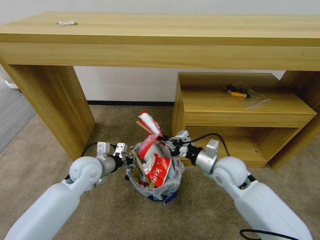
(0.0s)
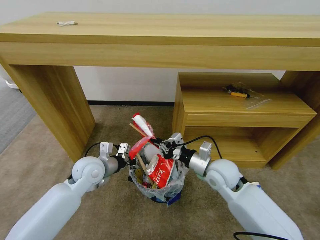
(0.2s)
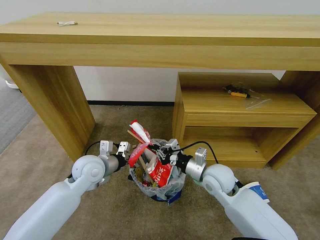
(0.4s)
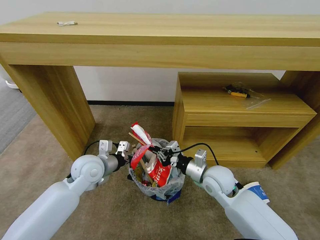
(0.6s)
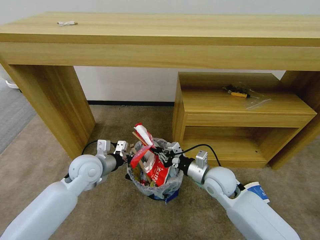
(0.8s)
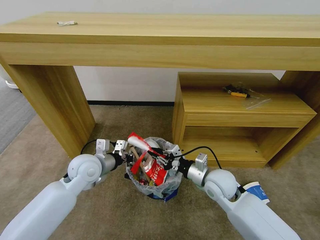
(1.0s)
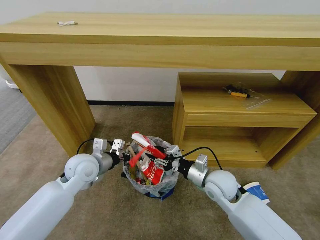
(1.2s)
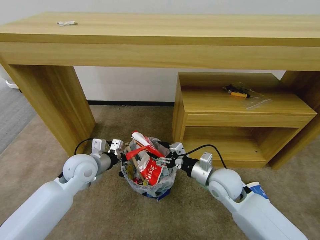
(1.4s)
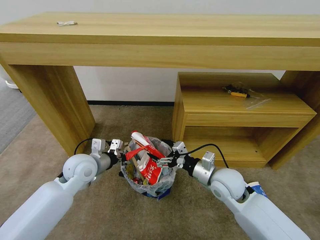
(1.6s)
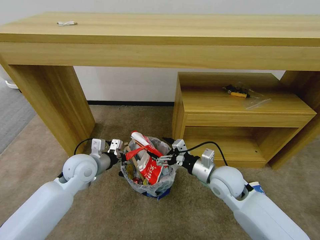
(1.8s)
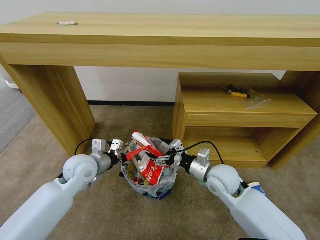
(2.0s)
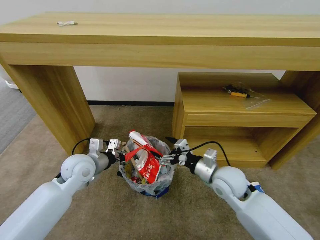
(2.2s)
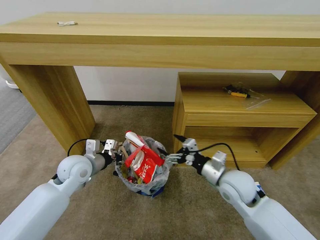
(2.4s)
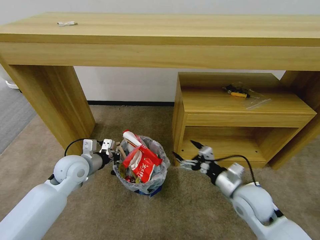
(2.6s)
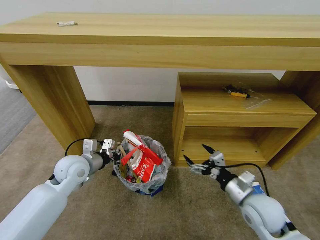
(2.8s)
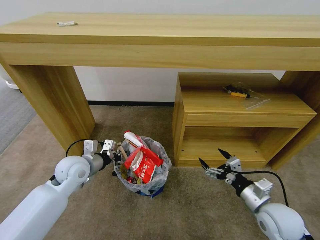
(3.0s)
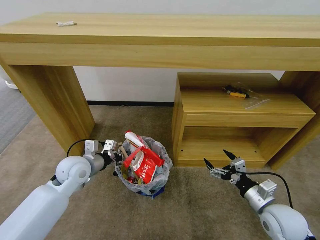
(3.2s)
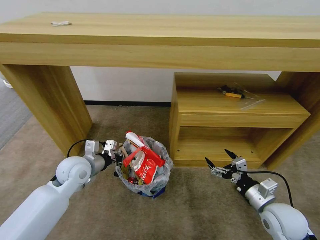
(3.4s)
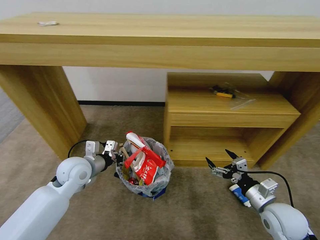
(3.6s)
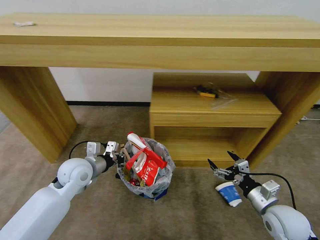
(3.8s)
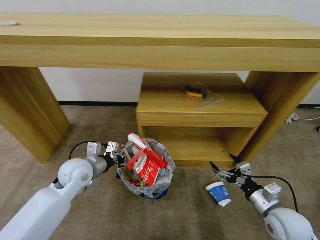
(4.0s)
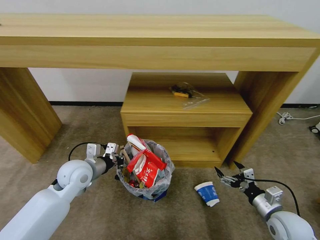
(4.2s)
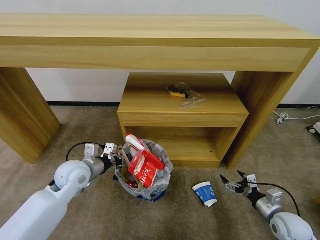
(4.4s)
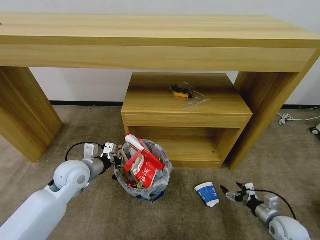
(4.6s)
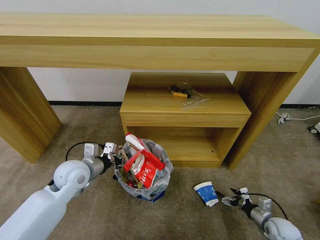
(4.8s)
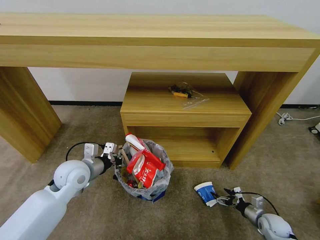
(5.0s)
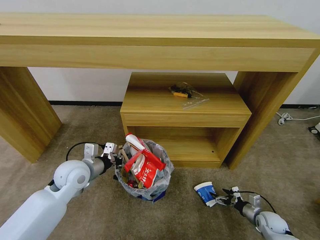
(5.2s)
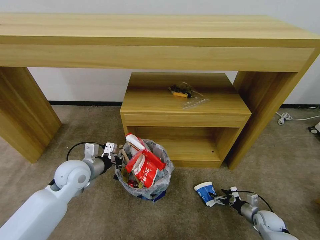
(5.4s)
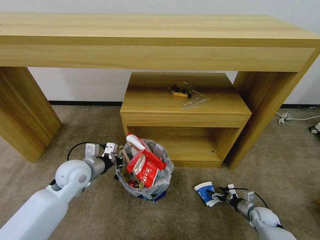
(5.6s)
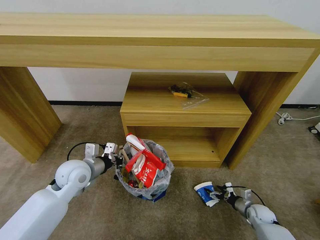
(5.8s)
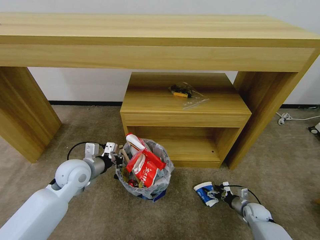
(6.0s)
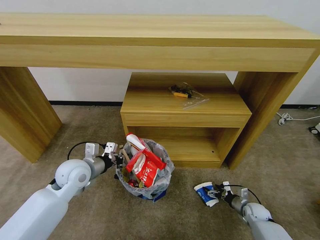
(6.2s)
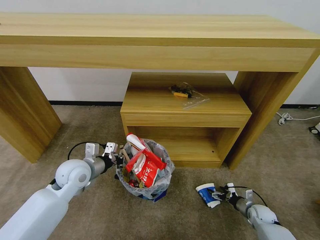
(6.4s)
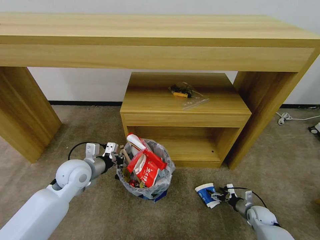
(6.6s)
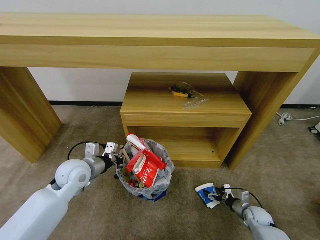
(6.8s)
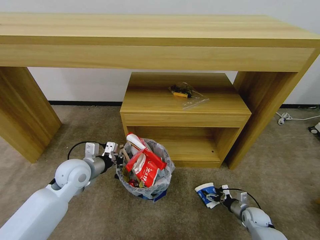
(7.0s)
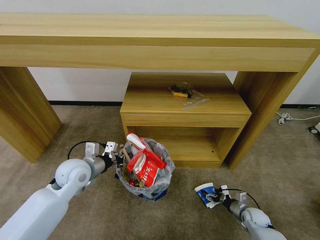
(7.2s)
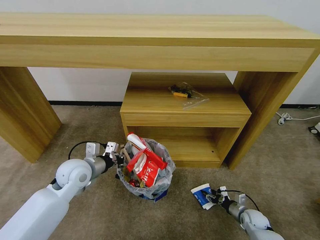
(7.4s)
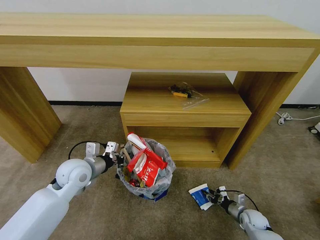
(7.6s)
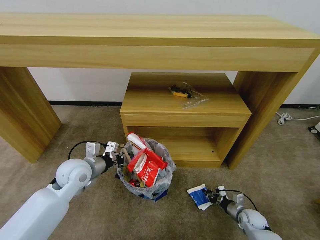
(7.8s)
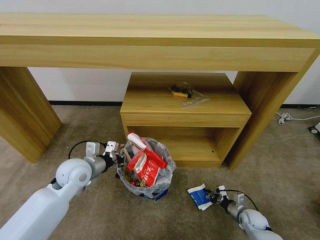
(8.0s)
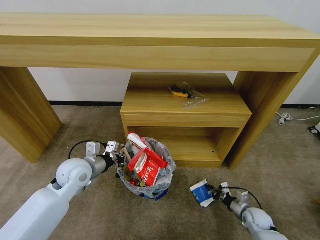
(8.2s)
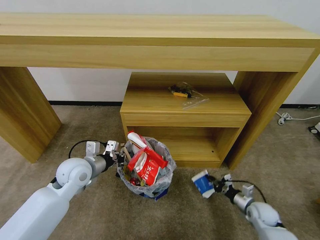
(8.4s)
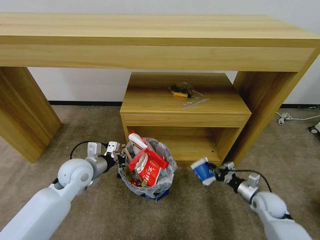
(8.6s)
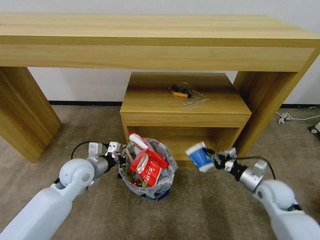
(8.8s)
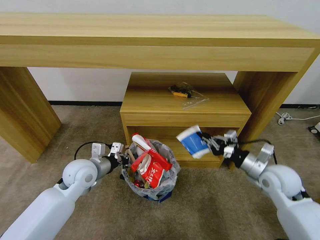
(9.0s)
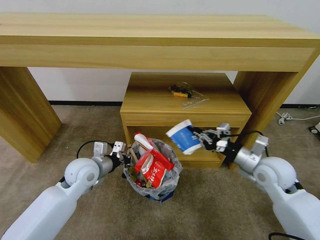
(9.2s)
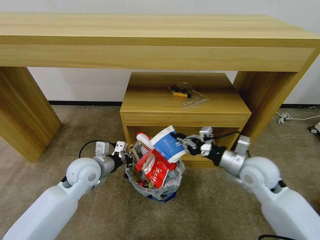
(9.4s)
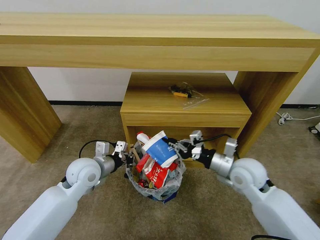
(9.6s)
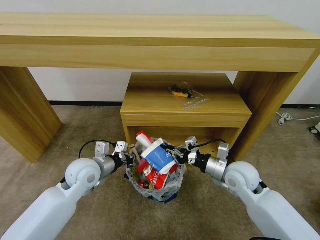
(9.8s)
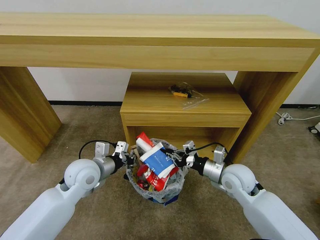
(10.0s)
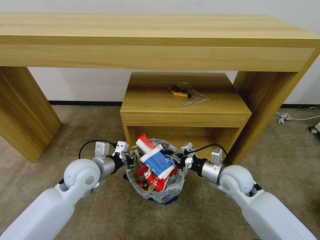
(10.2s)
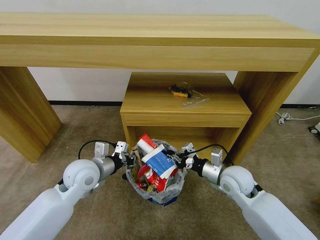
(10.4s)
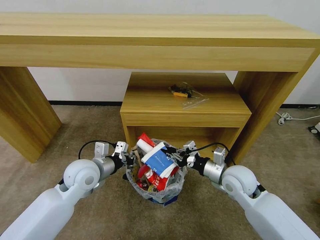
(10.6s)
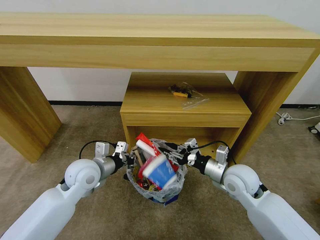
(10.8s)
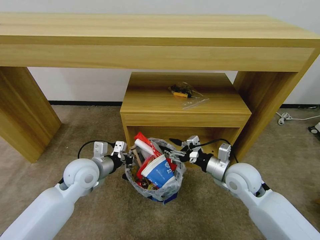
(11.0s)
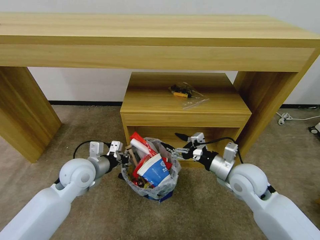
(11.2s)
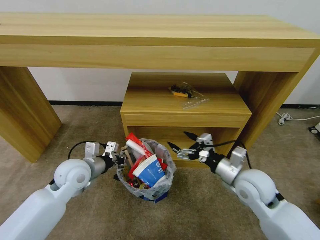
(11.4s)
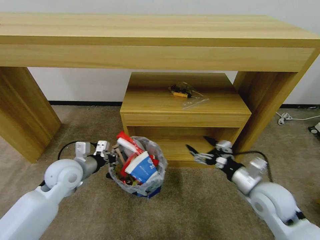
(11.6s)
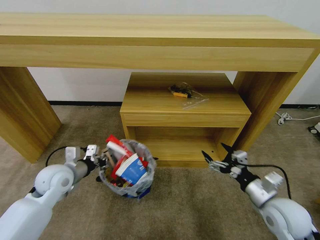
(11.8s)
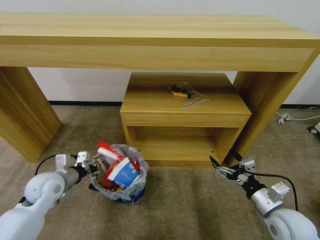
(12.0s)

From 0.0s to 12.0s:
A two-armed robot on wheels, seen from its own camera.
Task of the whole recording: Pick up the trash bin and place the garbage on the floor into it.
From 0.0s to 1.6s: The right gripper opens.
From 1.6s to 3.0s: The right gripper shifts roughly 15 cm to the right and backward.
From 3.0s to 4.4s: The right gripper goes about 15 cm to the right and downward.
From 4.4s to 6.0s: The right gripper heads downward and forward, covering some 20 cm.
From 6.0s to 7.6s: The right gripper closes up.
From 7.6s to 9.0s: The right gripper shifts roughly 30 cm upward, and closes its fingers.
From 9.0s to 10.4s: The right gripper is displaced to the left by some 10 cm.
From 10.4s to 12.0s: The left gripper heads to the left, covering roughly 10 cm. The right gripper heads backward and to the right, covering about 15 cm, and opens its fingers.

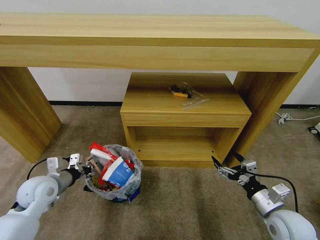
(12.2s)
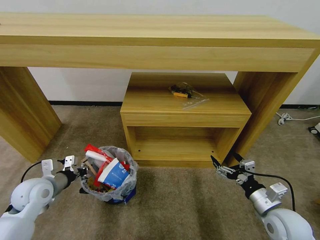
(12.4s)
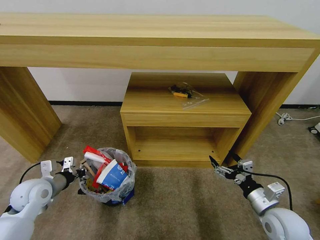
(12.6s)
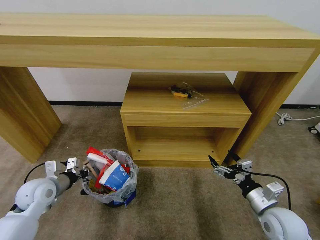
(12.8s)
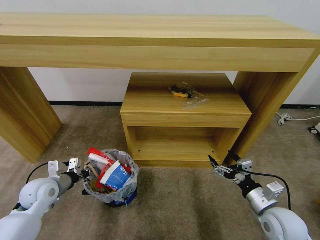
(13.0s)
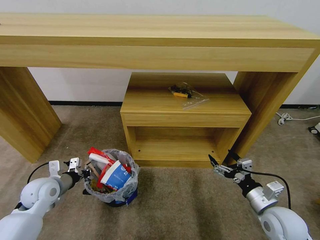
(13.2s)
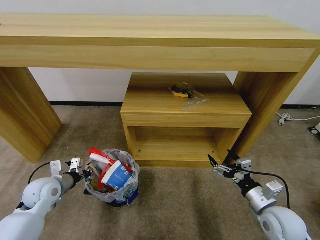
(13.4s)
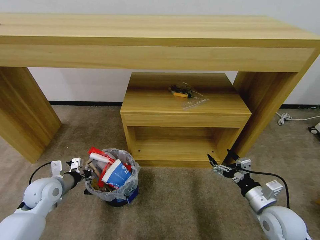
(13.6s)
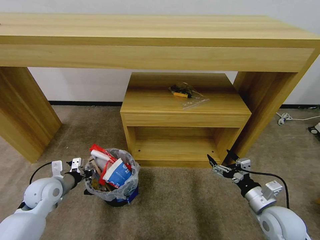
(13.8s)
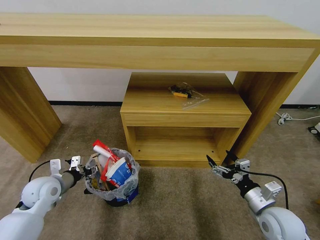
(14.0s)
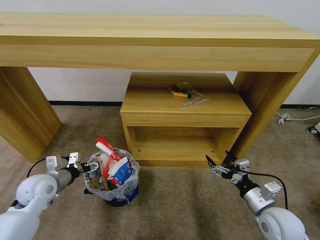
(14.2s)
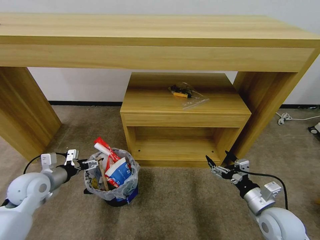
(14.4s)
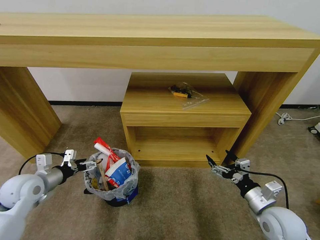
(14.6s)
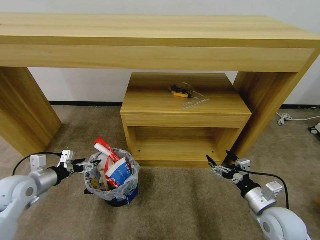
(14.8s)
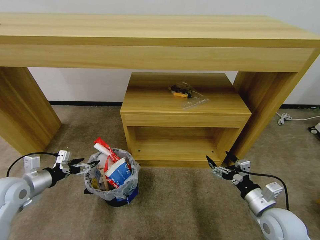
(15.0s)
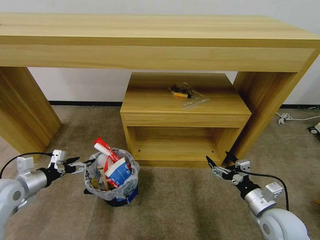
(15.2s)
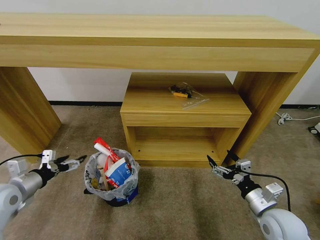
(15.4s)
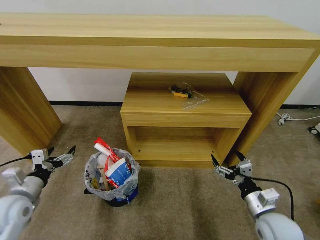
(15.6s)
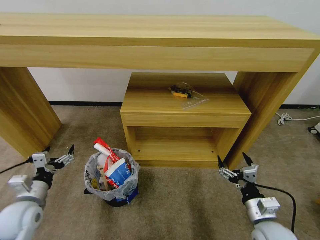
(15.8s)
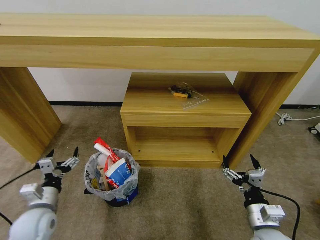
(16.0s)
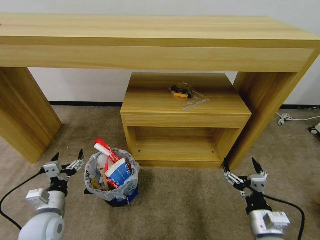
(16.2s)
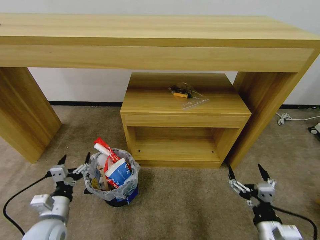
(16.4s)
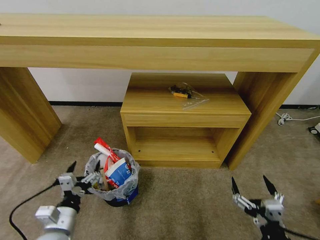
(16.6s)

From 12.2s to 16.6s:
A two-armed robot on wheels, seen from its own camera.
Task of the whole recording: Pick up the trash bin and place the garbage on the floor into it.
From 12.2s to 13.6s: The grippers make only small movements.
From 13.6s to 15.2s: The left gripper heads upward and to the left, covering some 10 cm, and opens its fingers.
From 15.2s to 16.6s: The left gripper shifts roughly 20 cm to the right, backward and downward. Meanwhile the right gripper travels backward by some 15 cm.

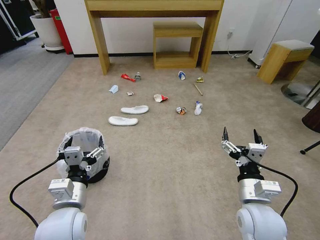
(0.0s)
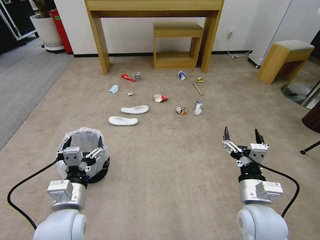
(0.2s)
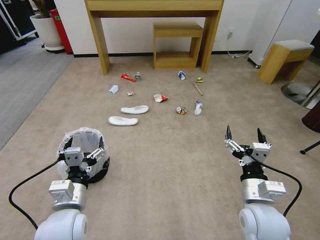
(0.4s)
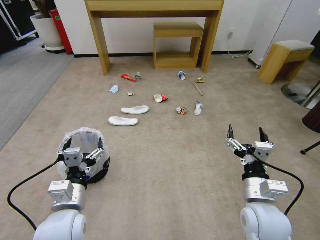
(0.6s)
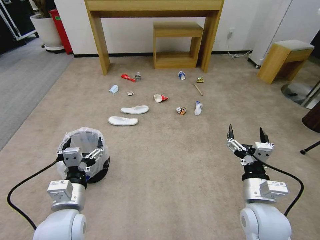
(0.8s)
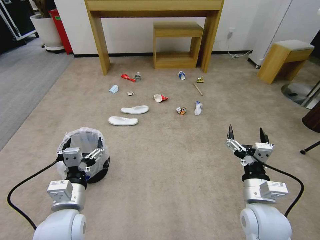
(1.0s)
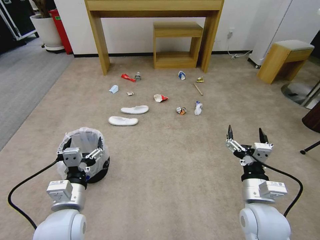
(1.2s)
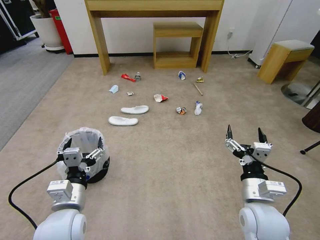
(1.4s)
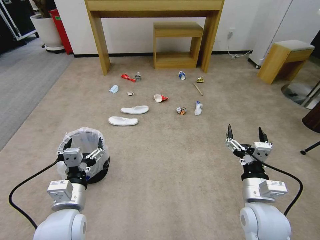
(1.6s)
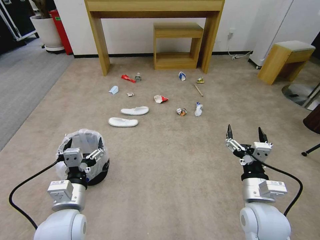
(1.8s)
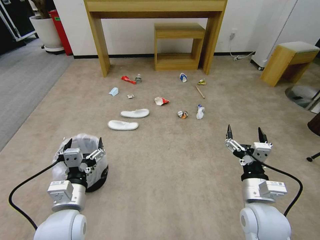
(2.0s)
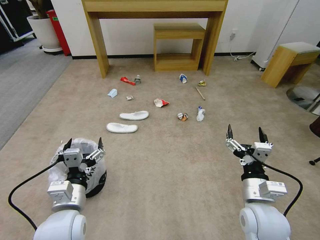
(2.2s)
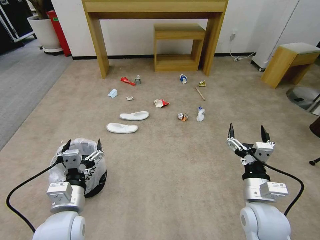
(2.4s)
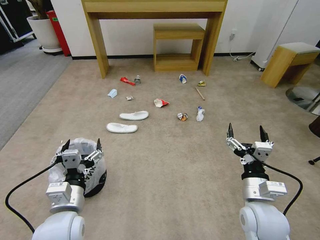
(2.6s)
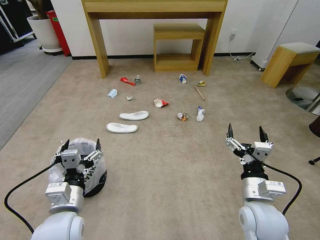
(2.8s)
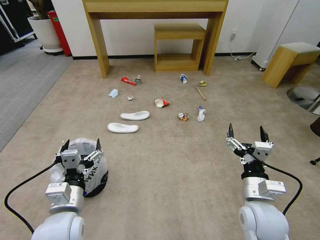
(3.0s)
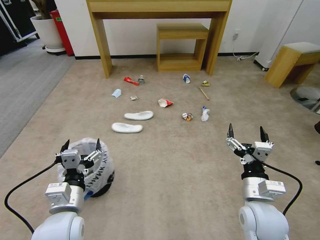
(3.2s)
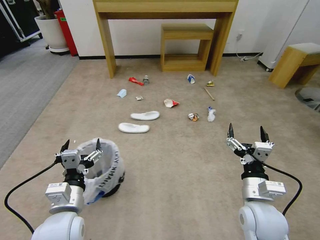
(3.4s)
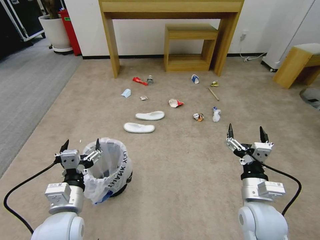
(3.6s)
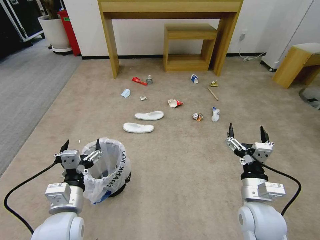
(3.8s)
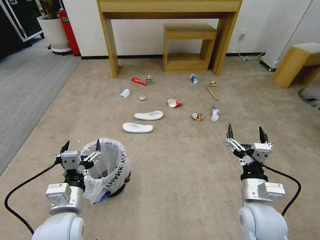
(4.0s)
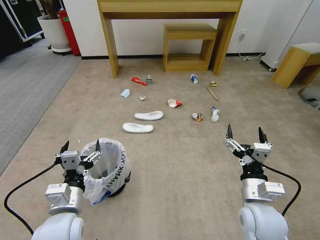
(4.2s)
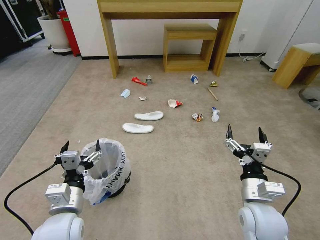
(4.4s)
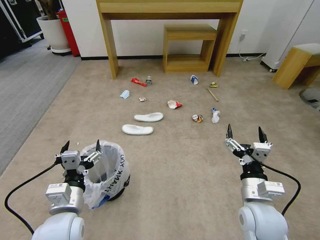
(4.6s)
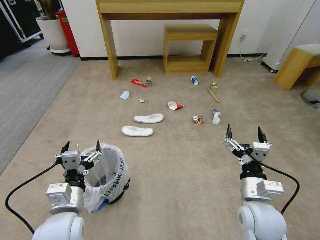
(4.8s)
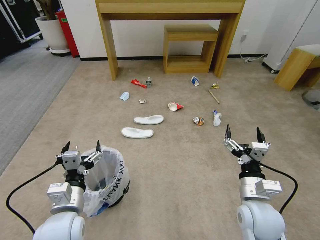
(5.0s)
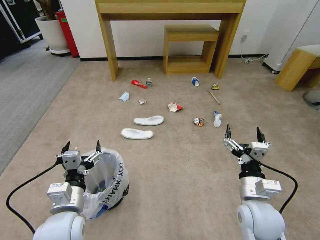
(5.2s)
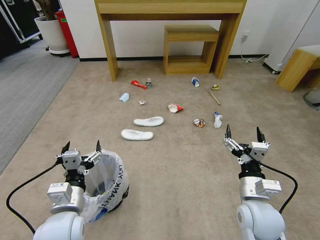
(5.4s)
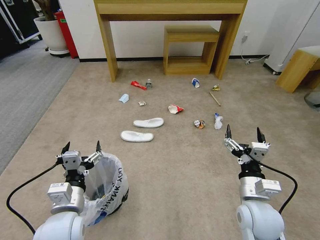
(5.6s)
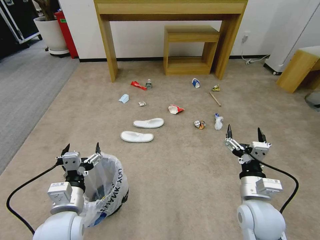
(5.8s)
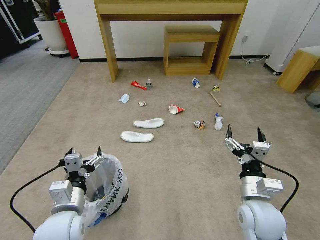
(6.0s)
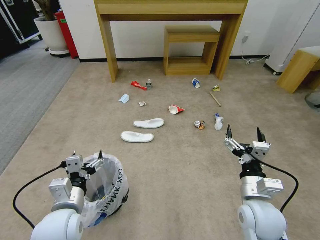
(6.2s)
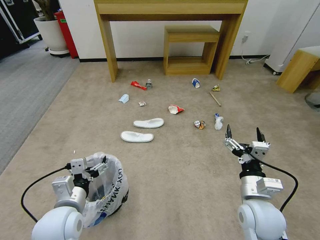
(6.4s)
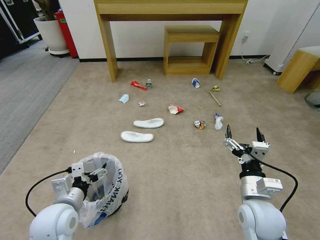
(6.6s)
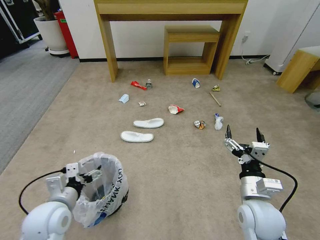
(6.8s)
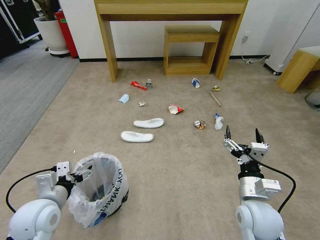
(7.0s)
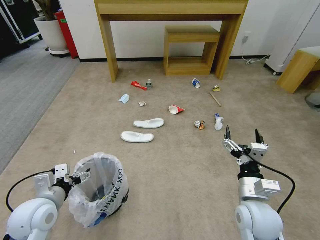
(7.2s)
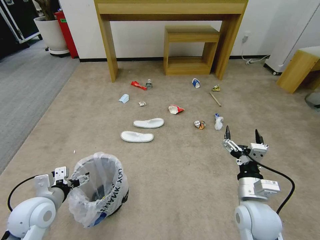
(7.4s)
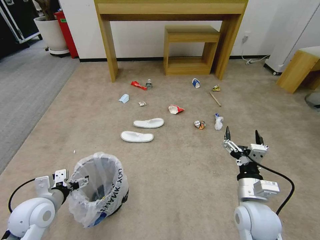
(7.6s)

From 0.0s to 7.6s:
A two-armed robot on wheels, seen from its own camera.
Task of the whole recording: Pick up the trash bin and place the garbage on the floor into it.
From 1.6s to 4.6s: Both grippers stay put.
From 4.6s to 6.0s: There are only small adjustments of the grippers.
From 6.0s to 7.6s: The left gripper is displaced to the left by approximately 10 cm.
